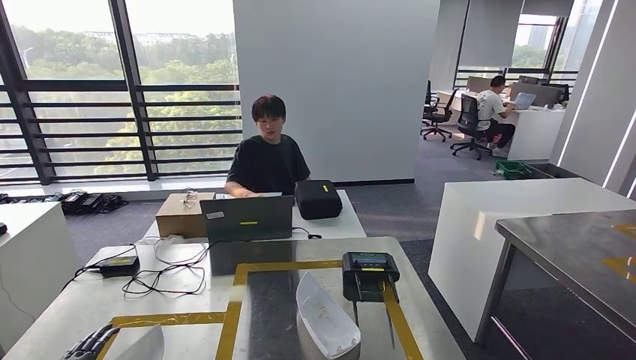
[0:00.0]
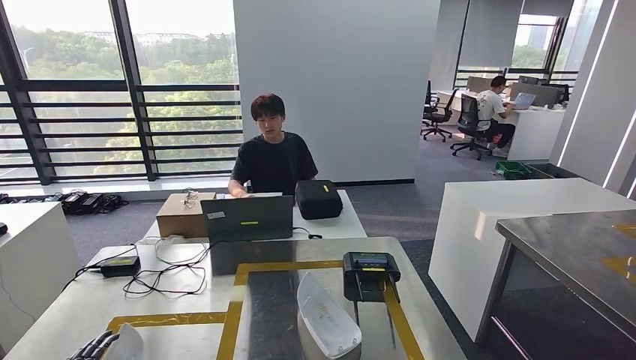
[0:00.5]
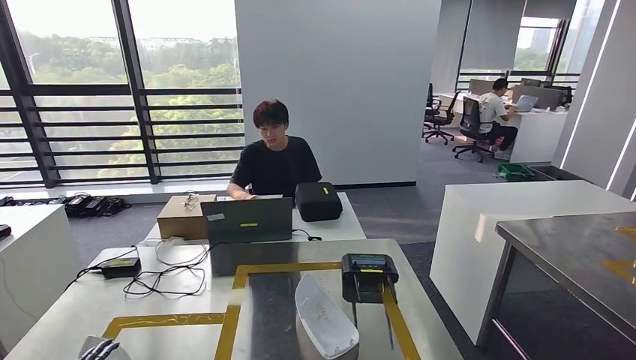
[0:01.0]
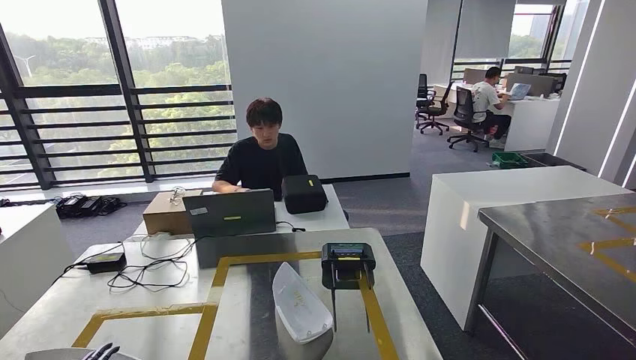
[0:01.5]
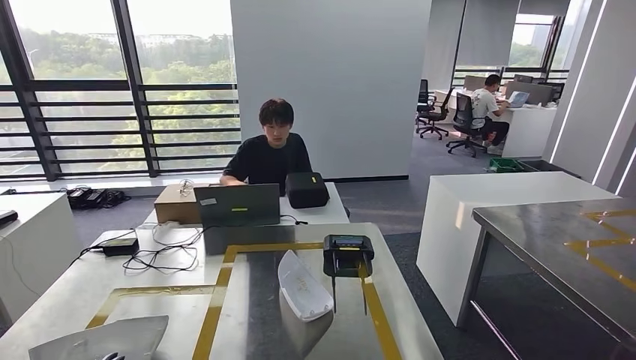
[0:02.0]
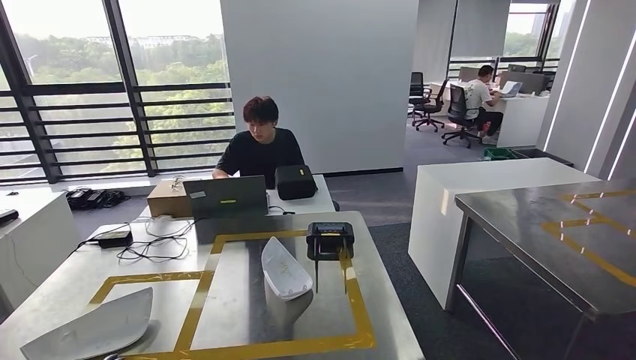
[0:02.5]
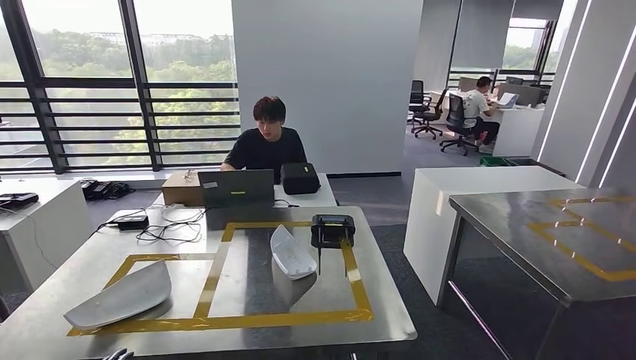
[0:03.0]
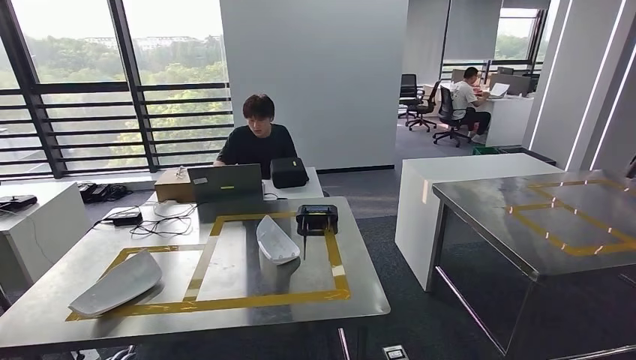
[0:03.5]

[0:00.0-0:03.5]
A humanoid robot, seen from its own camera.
Step, 0:01.5 to 0:03.5: Move to the initial position of the workbench.
